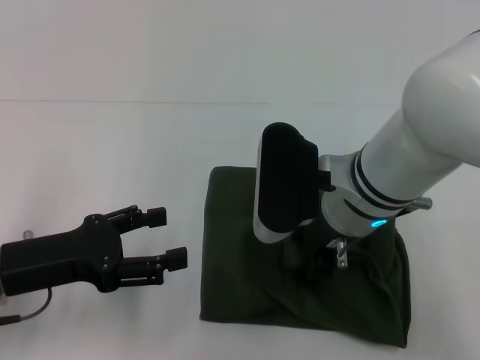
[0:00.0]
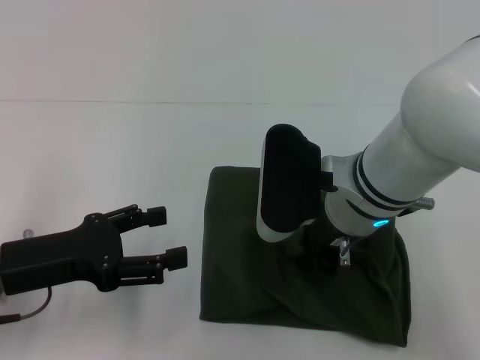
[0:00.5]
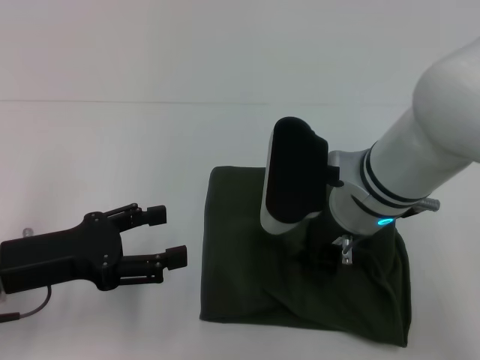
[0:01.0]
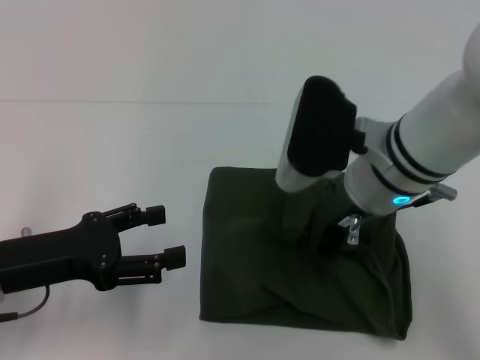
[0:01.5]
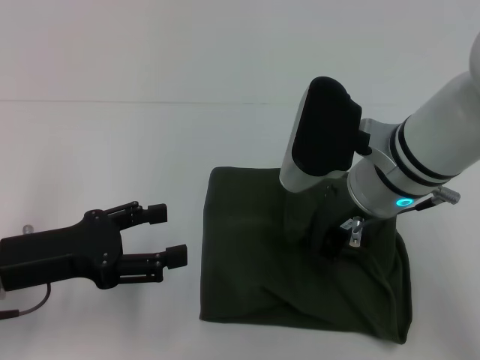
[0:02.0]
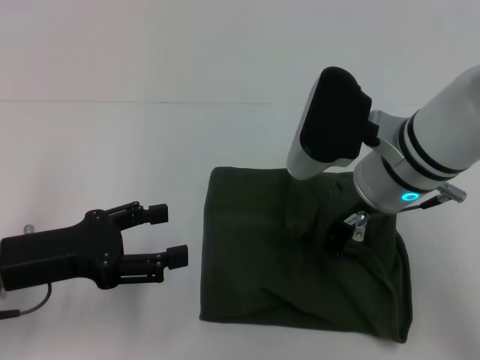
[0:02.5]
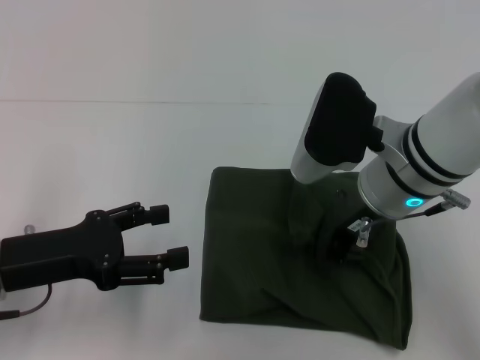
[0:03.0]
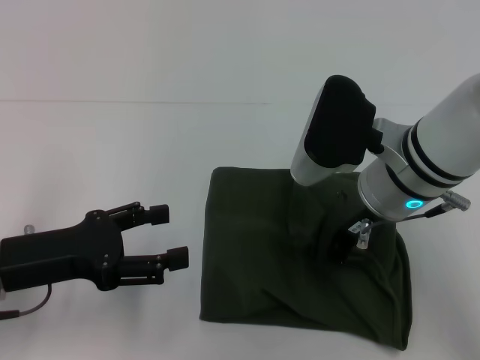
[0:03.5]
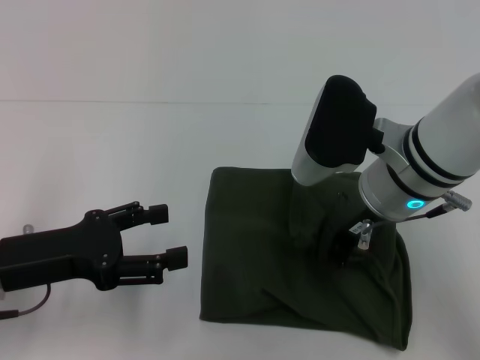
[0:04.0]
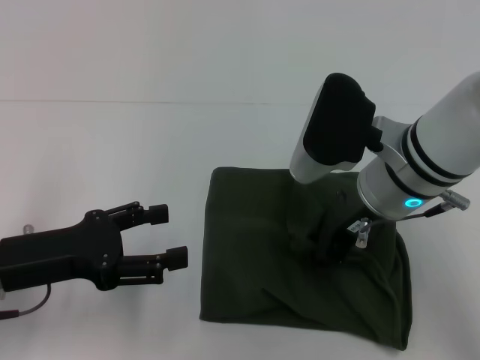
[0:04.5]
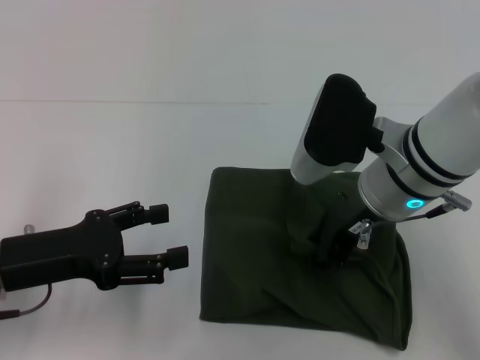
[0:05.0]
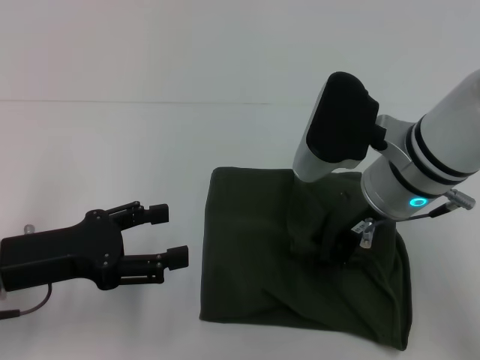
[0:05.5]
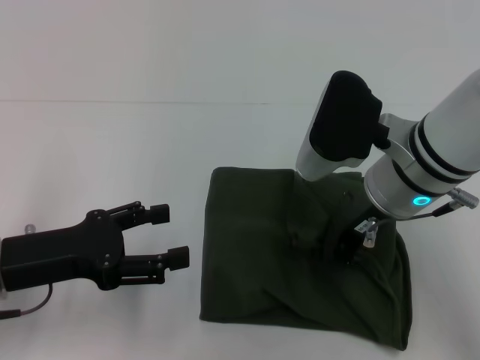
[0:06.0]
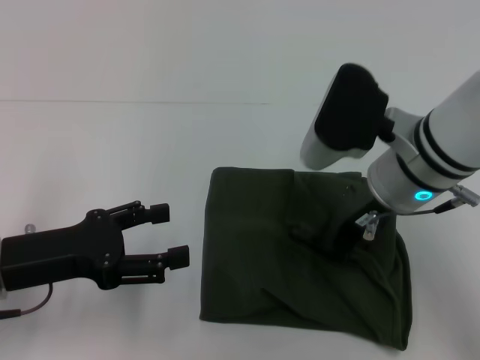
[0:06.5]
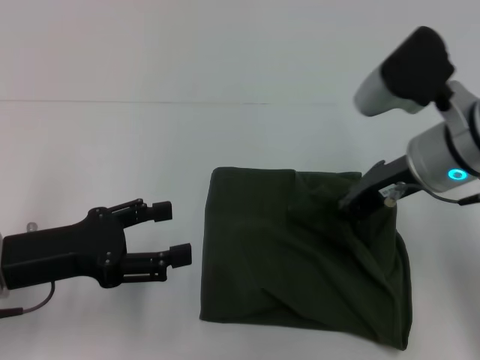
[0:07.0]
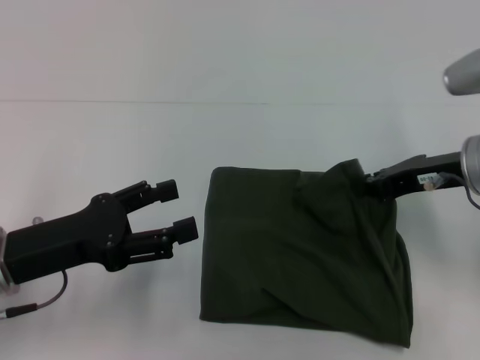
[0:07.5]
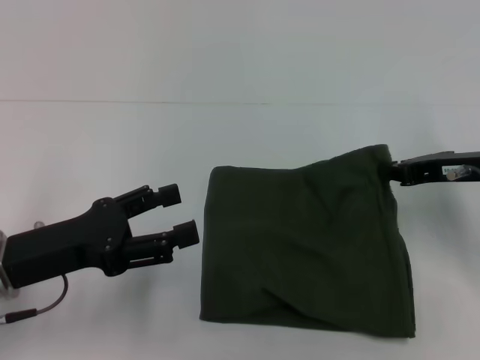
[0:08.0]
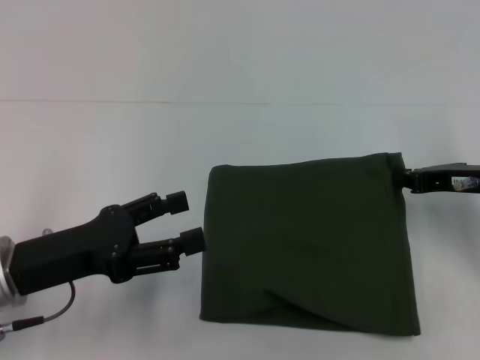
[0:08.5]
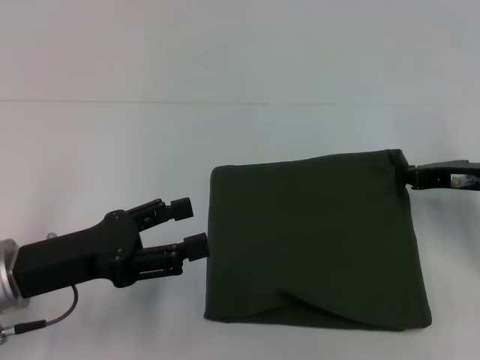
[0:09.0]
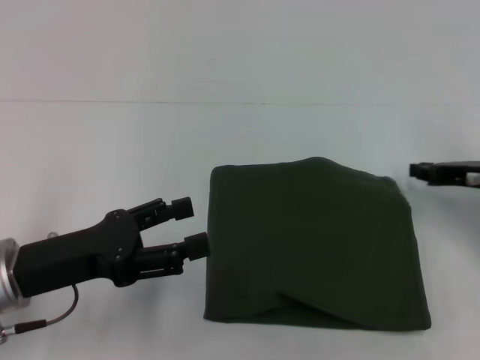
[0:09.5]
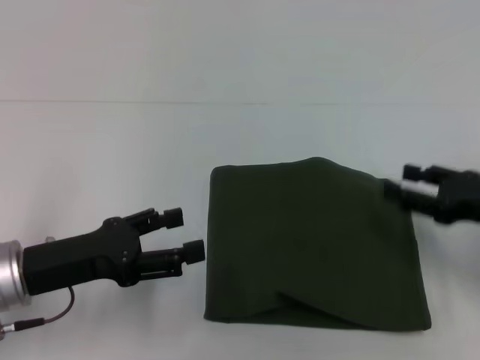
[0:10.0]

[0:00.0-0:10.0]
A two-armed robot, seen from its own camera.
0.0 to 2.0 s: The right gripper closes its fingers.
2.0 to 4.0 s: The grippers make only small movements.
4.0 to 6.0 s: Both grippers stay about where they are.
6.0 to 8.0 s: The right gripper heads to the right, covering about 15 cm.
8.0 to 10.0 s: The right gripper travels backward by roughly 5 cm, and opens.

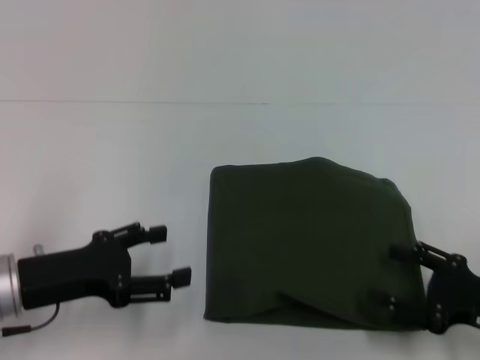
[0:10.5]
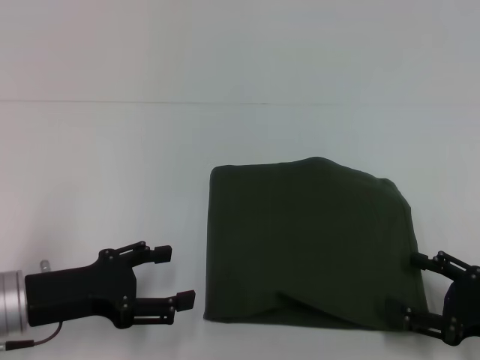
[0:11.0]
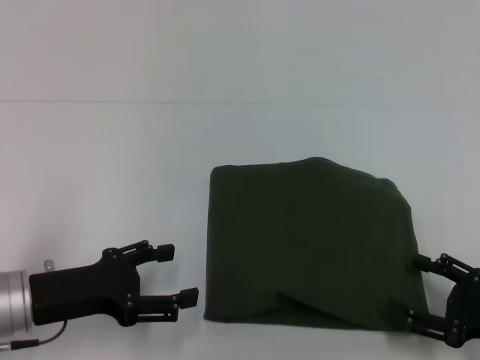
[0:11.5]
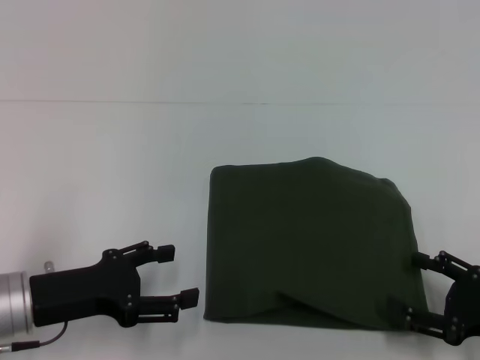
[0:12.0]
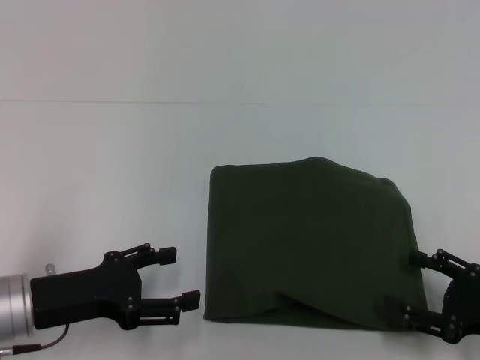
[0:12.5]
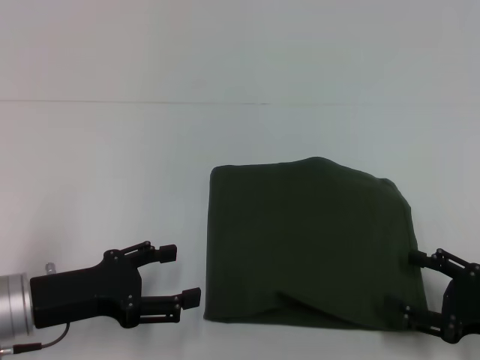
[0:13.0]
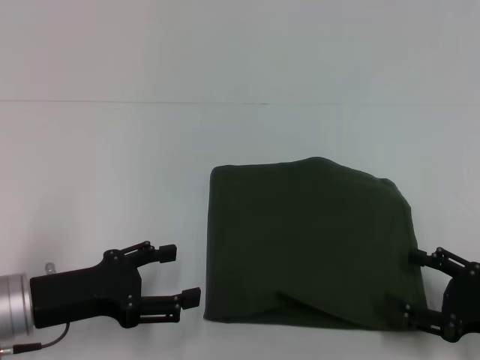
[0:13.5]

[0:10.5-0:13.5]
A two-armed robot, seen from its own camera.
10.5 to 12.0 s: The grippers stay close to where they were, moving slightly.
12.0 to 13.5 s: Both grippers stay put.

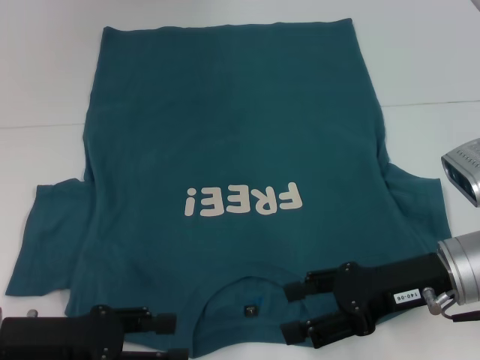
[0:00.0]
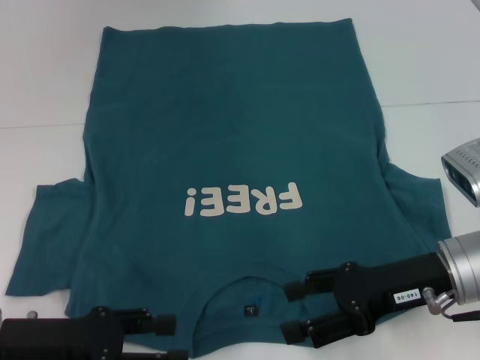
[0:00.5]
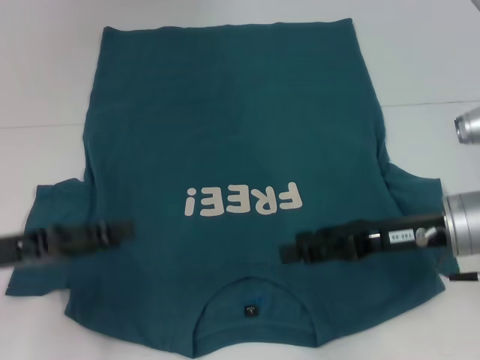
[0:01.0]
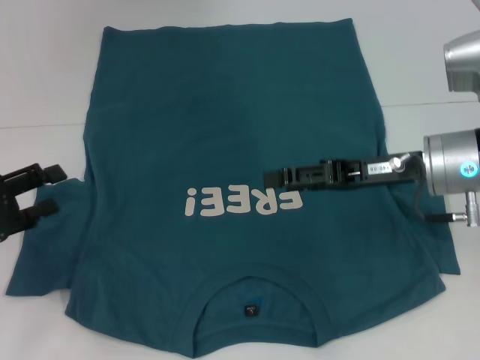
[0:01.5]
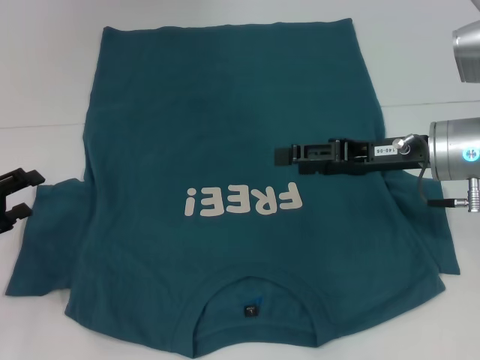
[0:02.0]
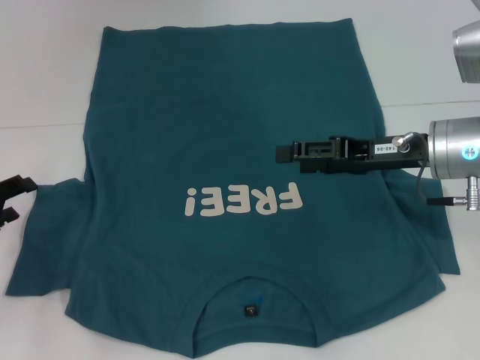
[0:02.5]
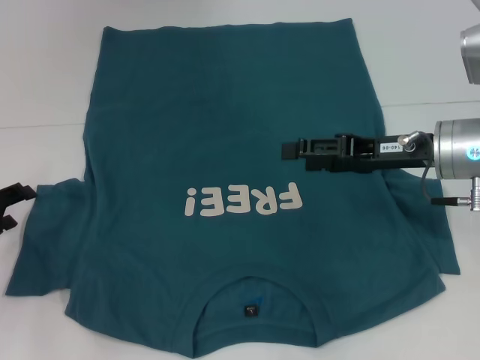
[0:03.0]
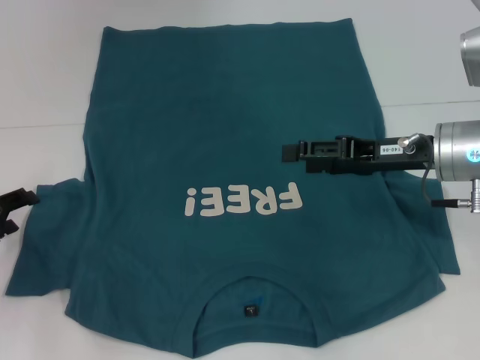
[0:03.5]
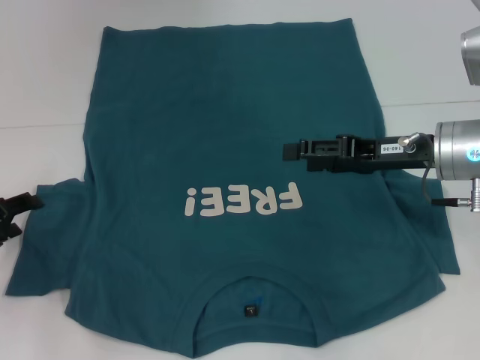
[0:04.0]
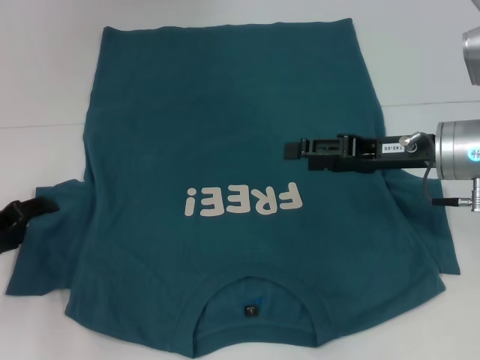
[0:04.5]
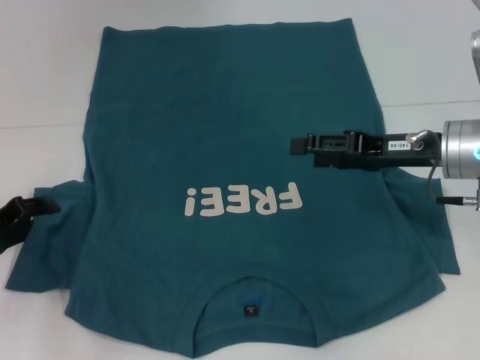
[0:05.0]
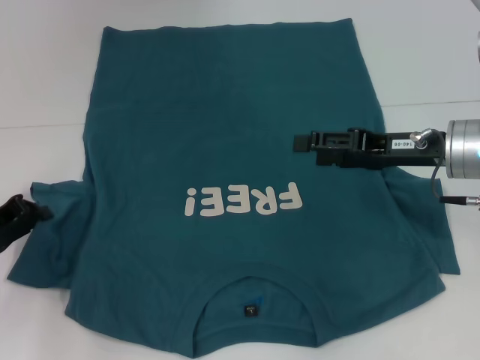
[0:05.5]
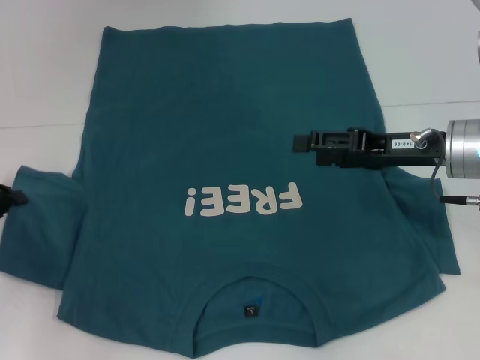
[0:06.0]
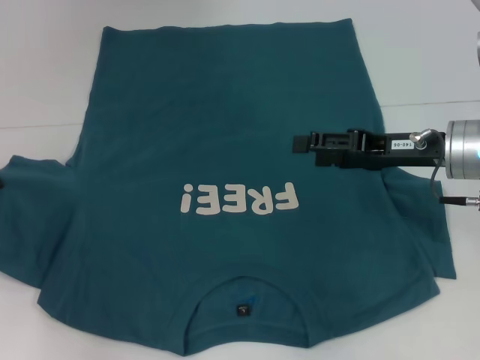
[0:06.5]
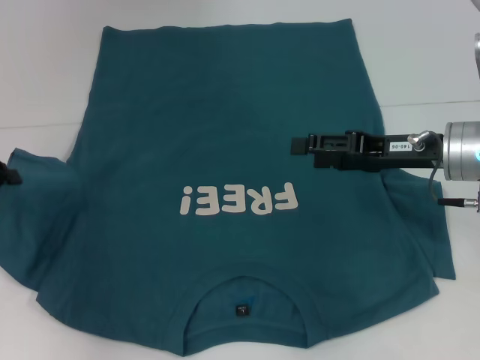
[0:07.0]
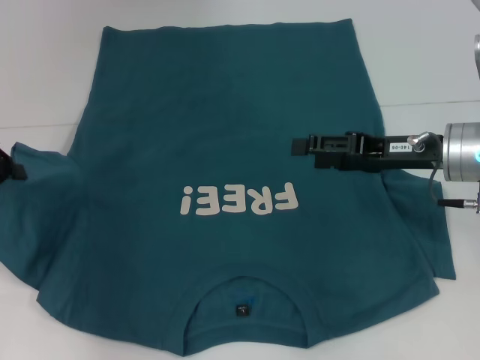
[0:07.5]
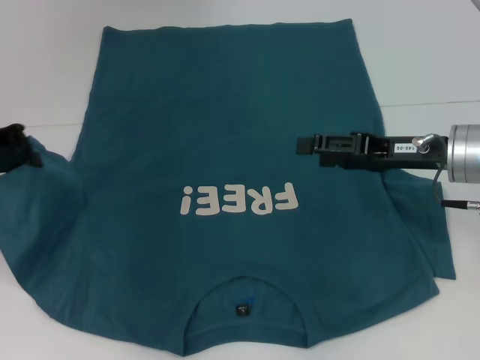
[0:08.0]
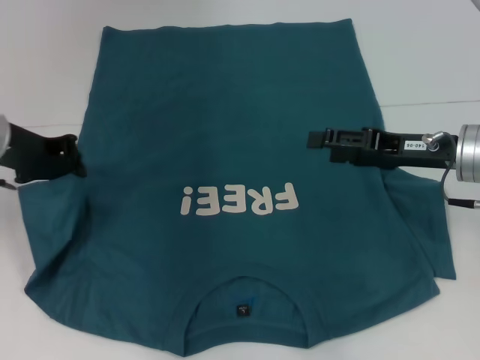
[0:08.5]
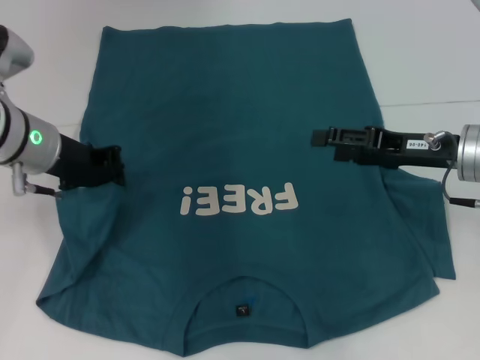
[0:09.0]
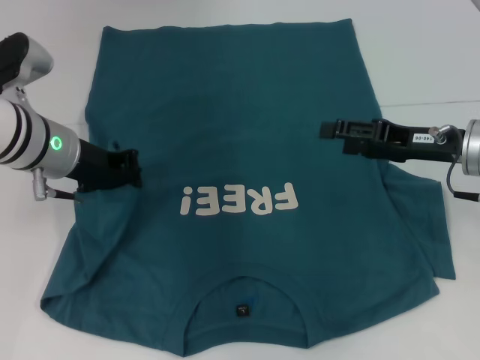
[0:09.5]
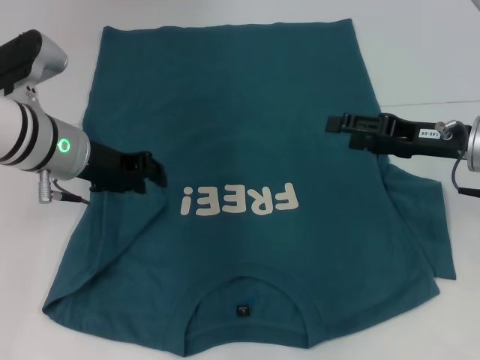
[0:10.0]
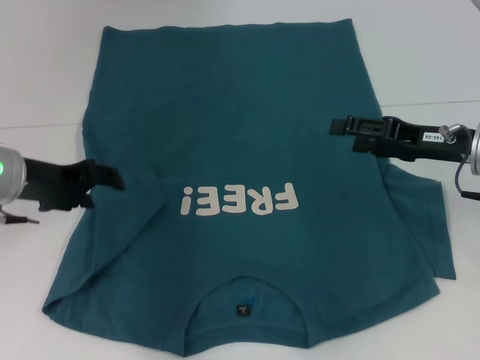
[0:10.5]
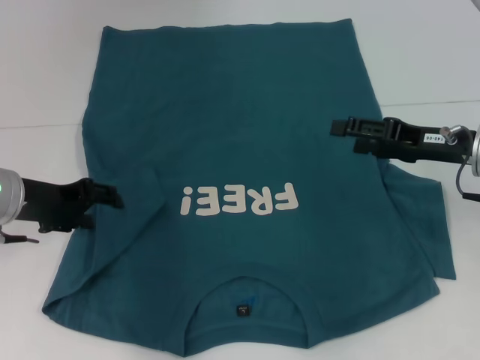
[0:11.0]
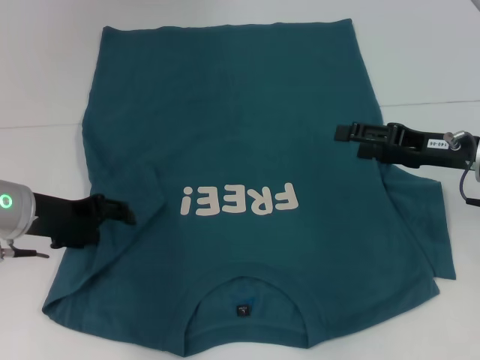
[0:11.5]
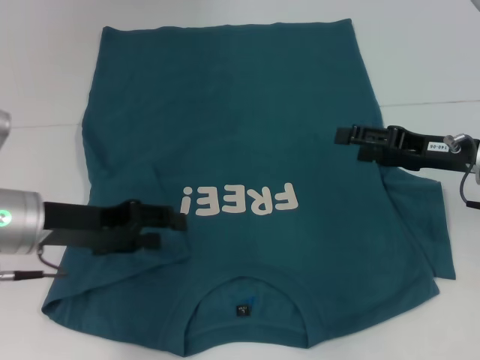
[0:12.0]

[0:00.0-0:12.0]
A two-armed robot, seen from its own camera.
Step, 0.0 to 11.5 s: Fold the bottom left sleeve with your left hand.
0.0 to 2.0 s: The left gripper shifts roughly 10 cm to the left and forward. Meanwhile the right gripper travels forward by roughly 10 cm.
2.0 to 4.0 s: The grippers make only small movements.
4.0 to 6.0 s: The left gripper closes up.
6.0 to 8.0 s: The left gripper goes roughly 10 cm upward and forward.
8.0 to 10.0 s: The left gripper moves to the right, some 10 cm.
10.0 to 12.0 s: The left gripper shifts approximately 10 cm backward, and opens.

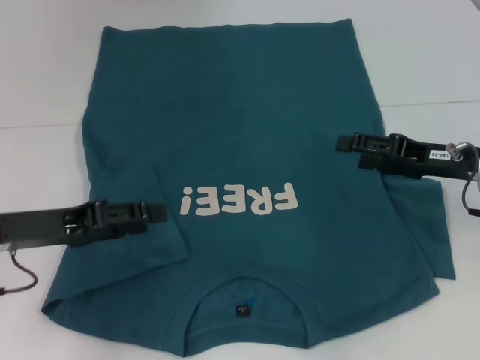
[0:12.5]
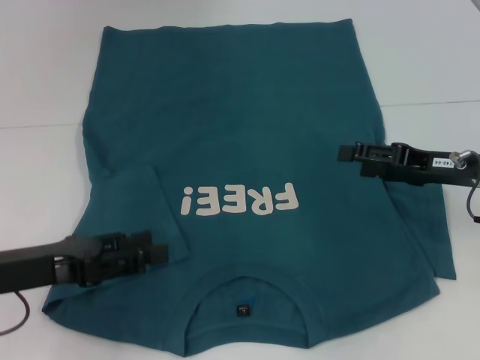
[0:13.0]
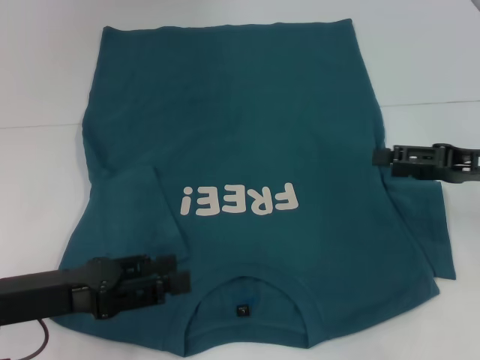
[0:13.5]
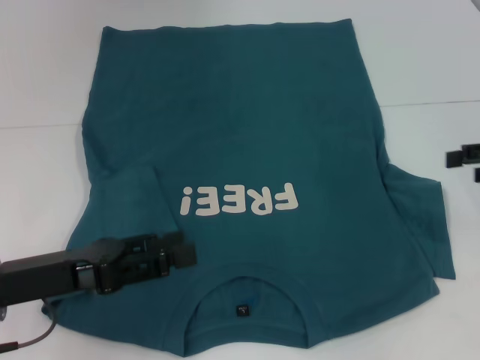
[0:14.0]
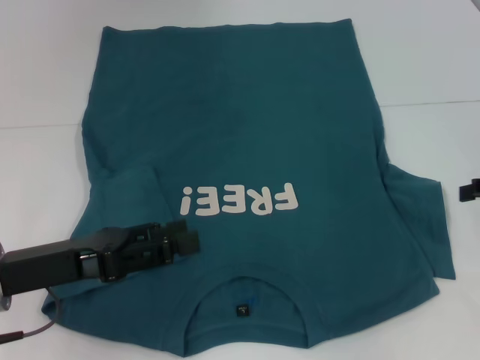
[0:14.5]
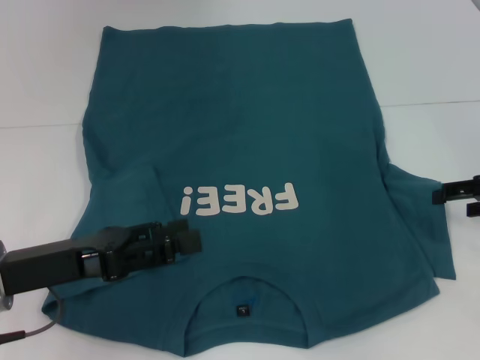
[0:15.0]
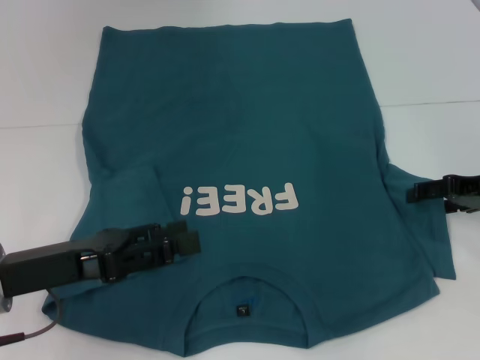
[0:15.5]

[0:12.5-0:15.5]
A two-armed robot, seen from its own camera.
12.5 to 14.0 s: The left gripper changes place by about 5 cm, while the right gripper heads to the right and upward, covering approximately 10 cm.
14.0 to 15.5 s: The right gripper travels downward by roughly 5 cm.
